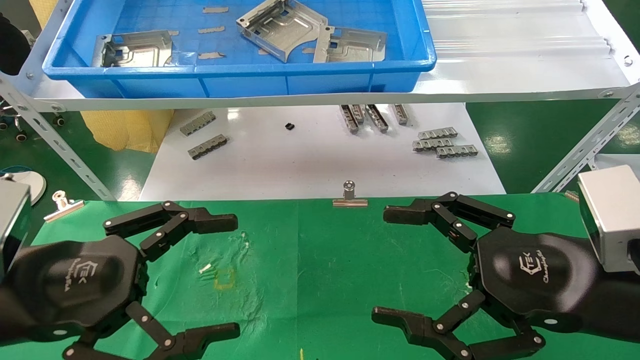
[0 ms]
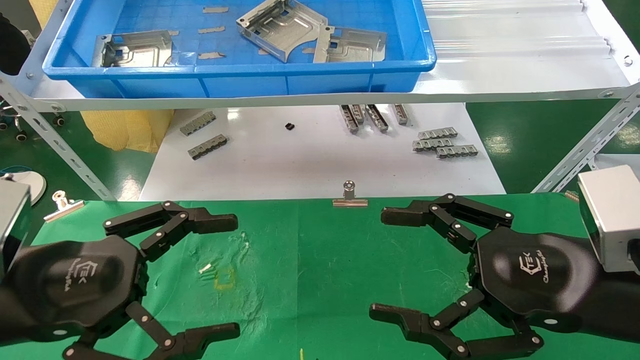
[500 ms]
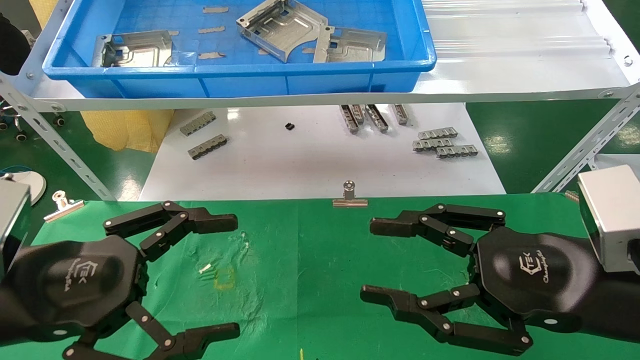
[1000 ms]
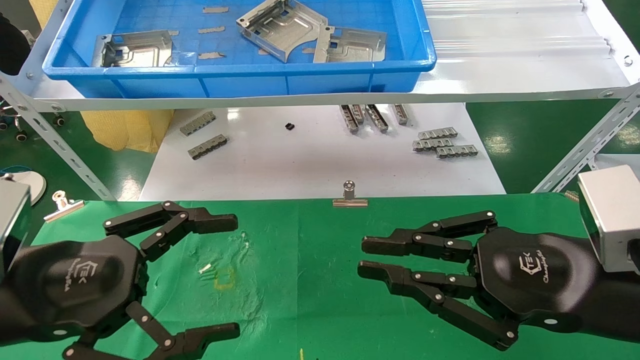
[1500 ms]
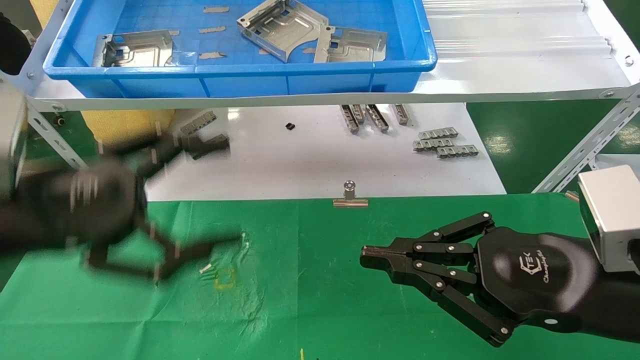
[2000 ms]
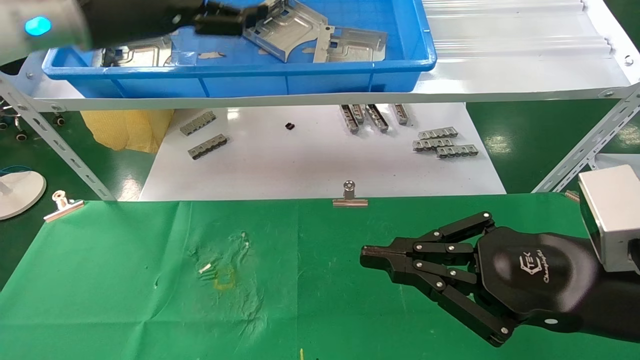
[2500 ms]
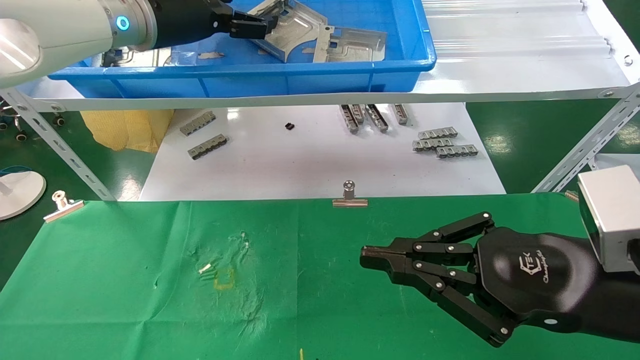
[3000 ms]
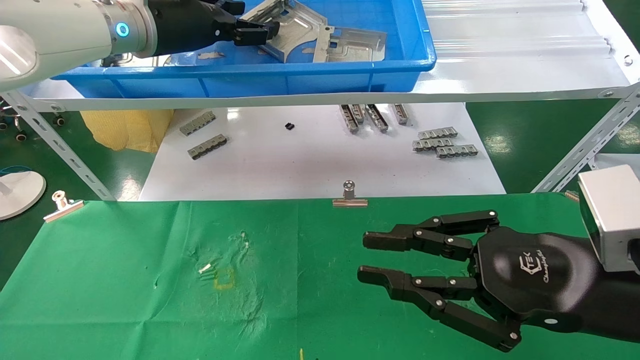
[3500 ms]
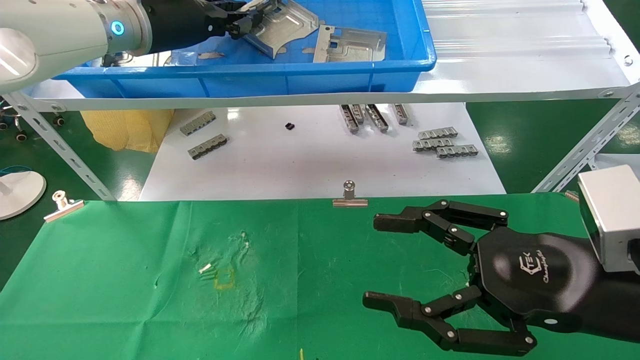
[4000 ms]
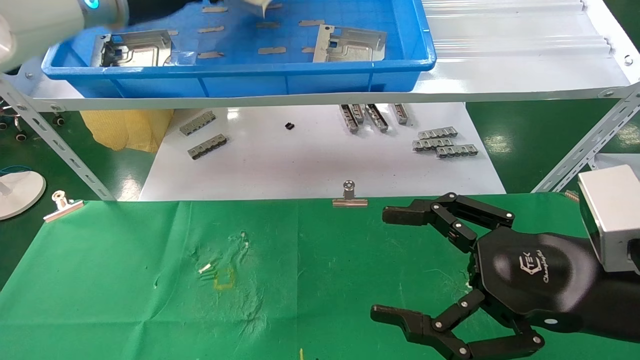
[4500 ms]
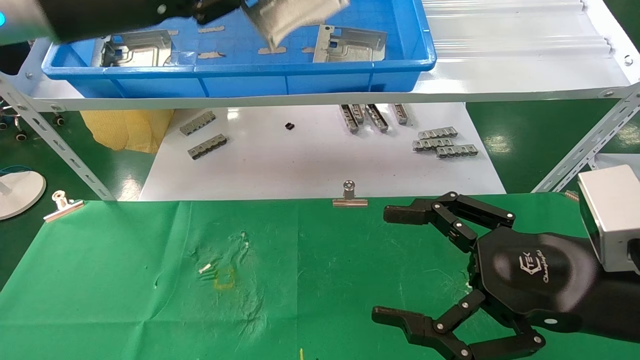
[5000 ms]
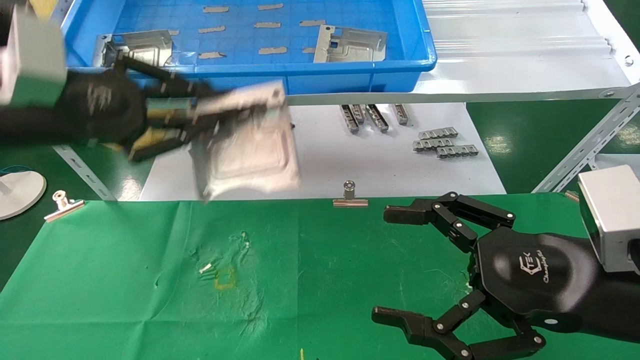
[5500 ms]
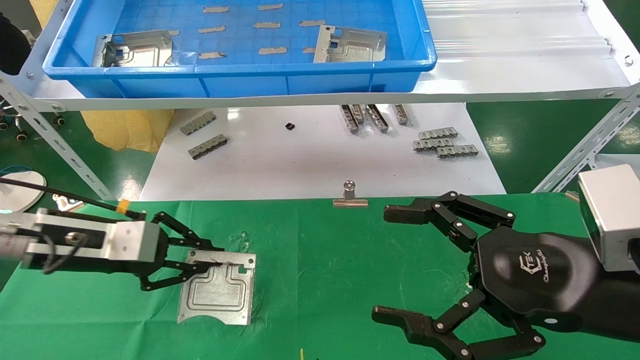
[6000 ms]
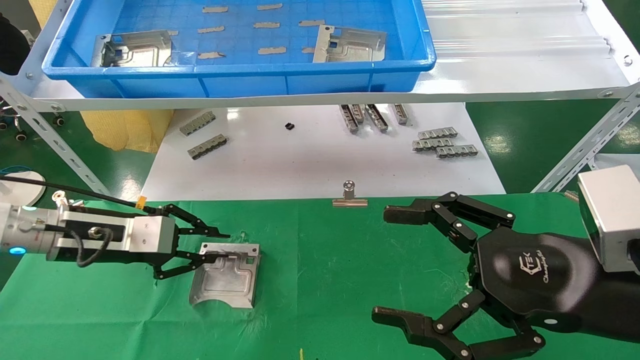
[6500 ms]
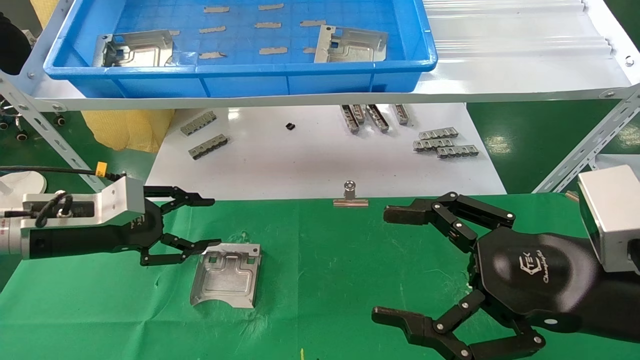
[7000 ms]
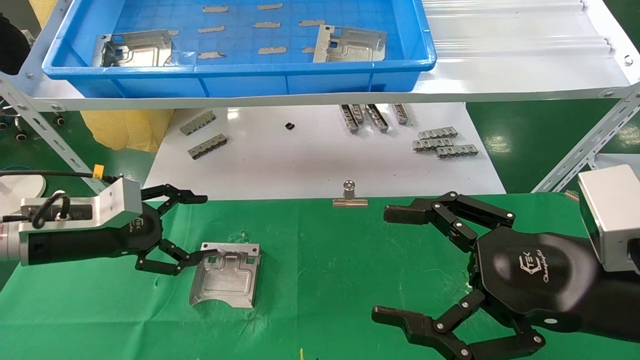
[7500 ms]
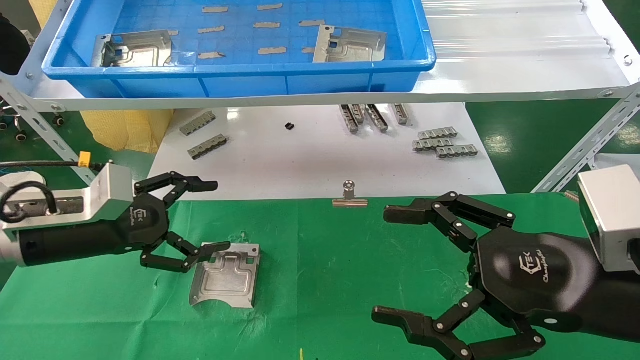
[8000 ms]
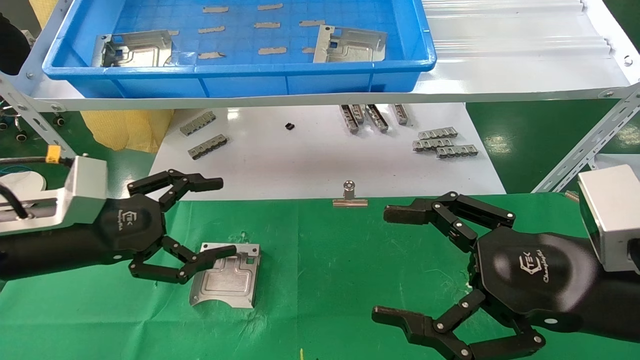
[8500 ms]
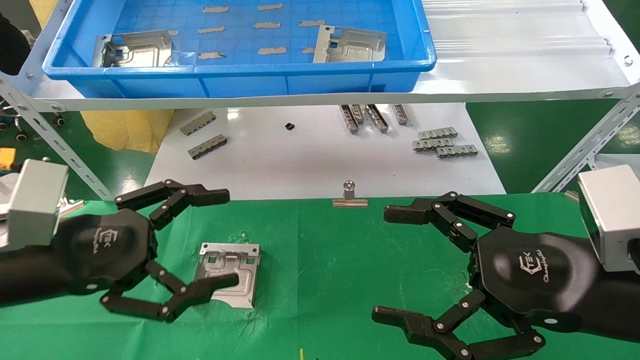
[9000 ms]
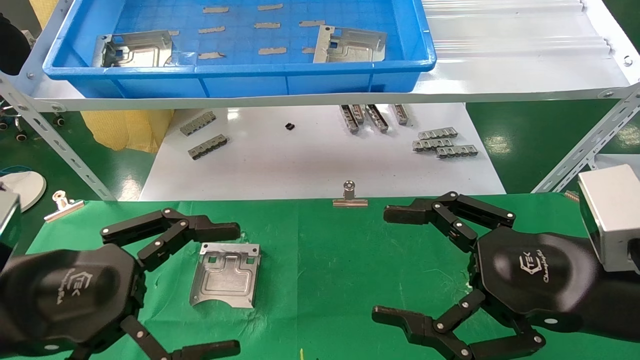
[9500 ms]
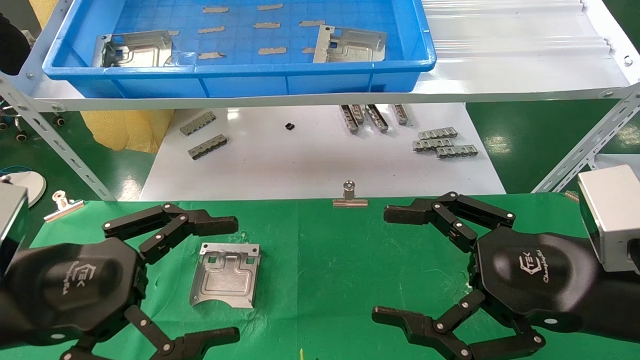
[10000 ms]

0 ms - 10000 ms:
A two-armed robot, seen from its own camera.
Task of the whole recording: use the mechanical arm to pick up the parts and place them on the table.
Step, 2500 ms - 4000 ms: Pick up the hard drive bracket from the feeding area.
Step, 4500 ms - 6500 ms: Place the hard drive bracket into the box.
0 ms - 2000 ms: The left gripper heads upward, covering some 5 cm. Meanwhile the right gripper closes.
2000 ms - 4000 ms: The right gripper opens; the left gripper moves forward and upward, some 25 cm, and closes its fingers.
4000 ms - 6000 ms: The left gripper goes roughly 25 cm downward and to the left; the right gripper opens up.
6000 ms - 8000 ms: The left gripper opens up.
8000 ms - 10000 ms: The left gripper is displaced backward by some 15 cm.
